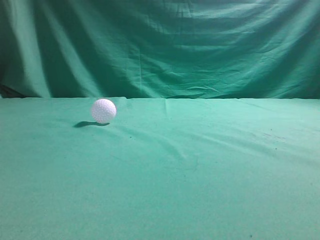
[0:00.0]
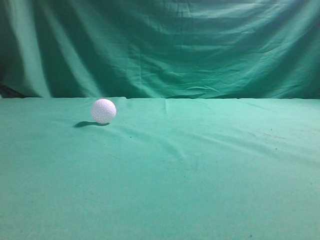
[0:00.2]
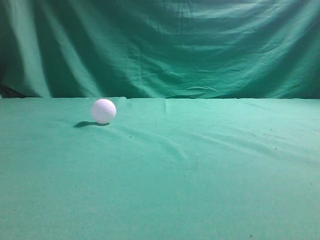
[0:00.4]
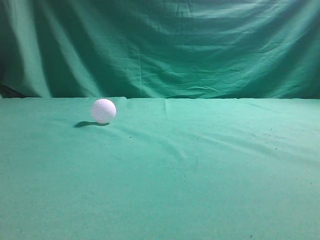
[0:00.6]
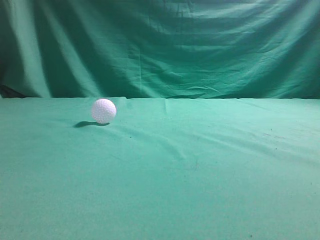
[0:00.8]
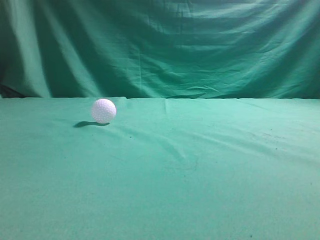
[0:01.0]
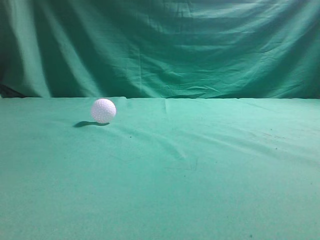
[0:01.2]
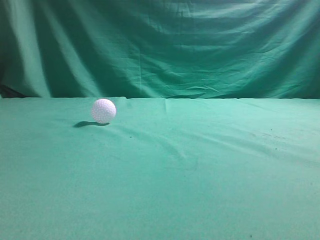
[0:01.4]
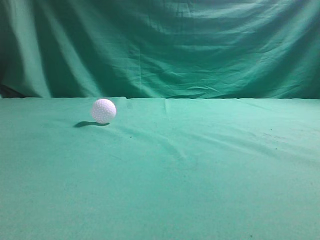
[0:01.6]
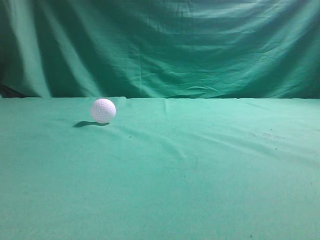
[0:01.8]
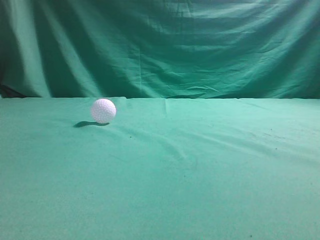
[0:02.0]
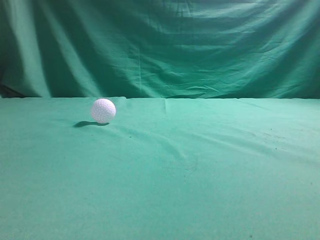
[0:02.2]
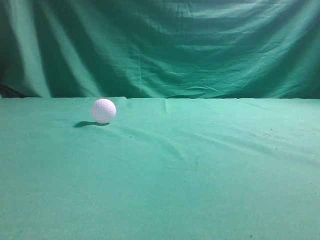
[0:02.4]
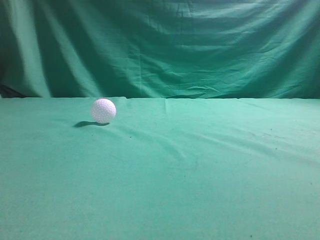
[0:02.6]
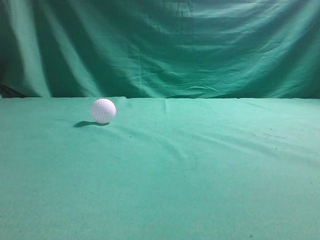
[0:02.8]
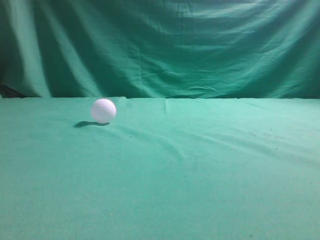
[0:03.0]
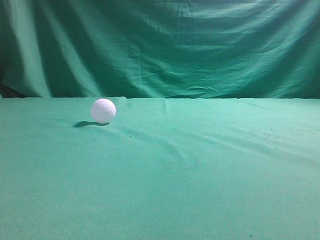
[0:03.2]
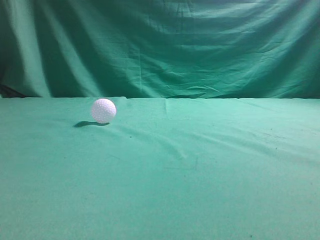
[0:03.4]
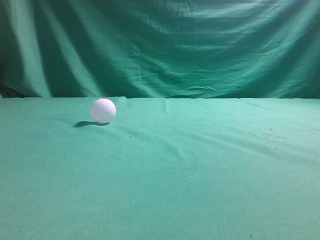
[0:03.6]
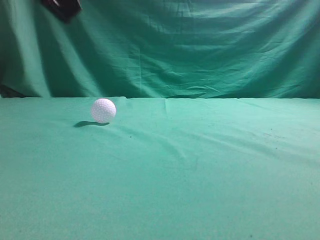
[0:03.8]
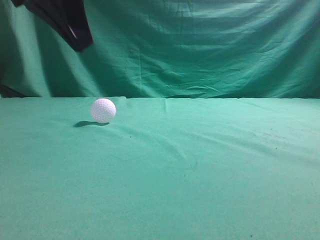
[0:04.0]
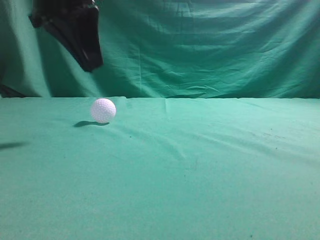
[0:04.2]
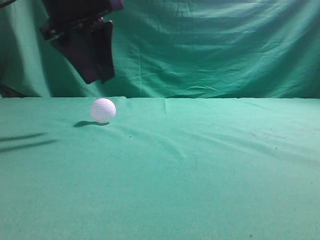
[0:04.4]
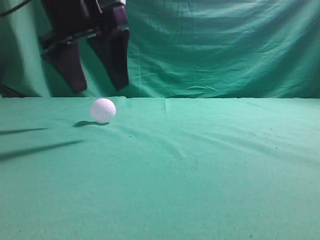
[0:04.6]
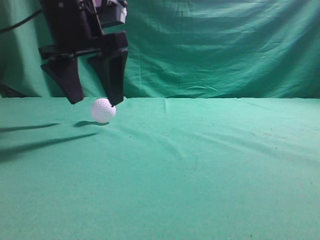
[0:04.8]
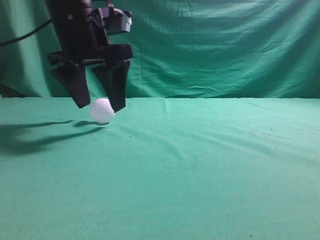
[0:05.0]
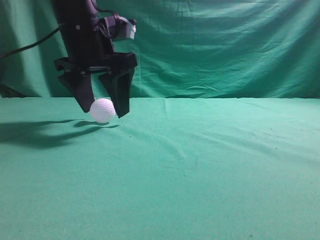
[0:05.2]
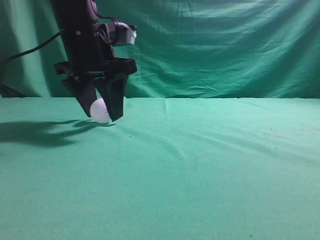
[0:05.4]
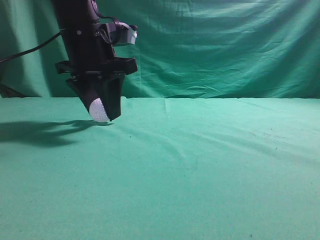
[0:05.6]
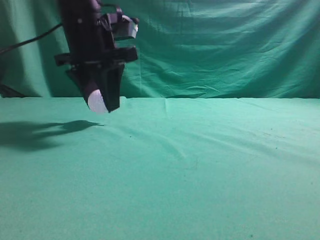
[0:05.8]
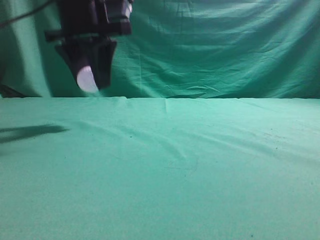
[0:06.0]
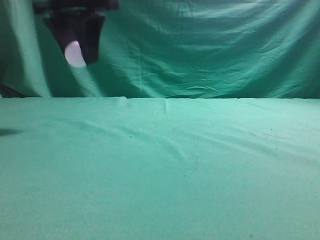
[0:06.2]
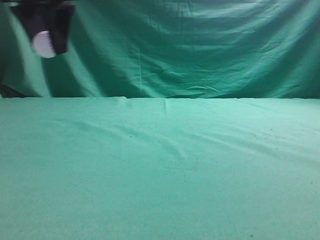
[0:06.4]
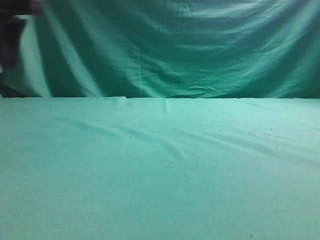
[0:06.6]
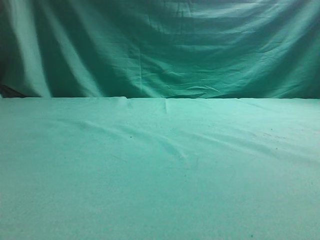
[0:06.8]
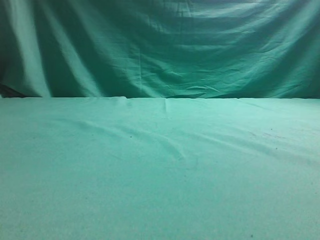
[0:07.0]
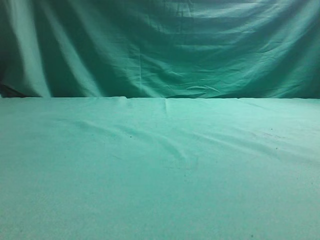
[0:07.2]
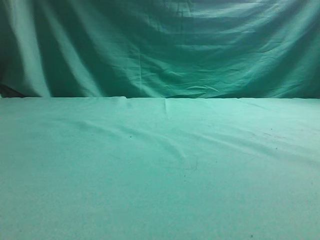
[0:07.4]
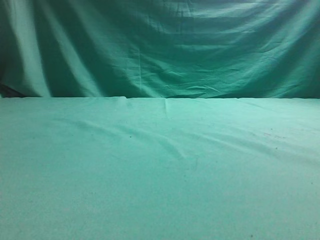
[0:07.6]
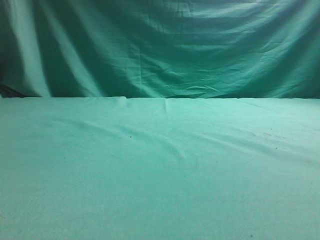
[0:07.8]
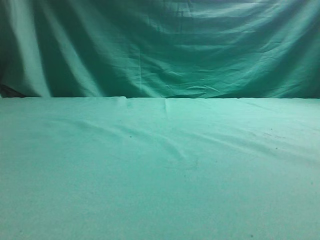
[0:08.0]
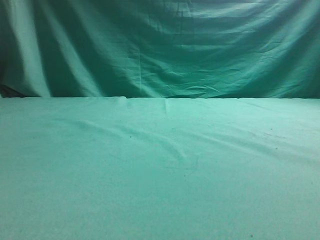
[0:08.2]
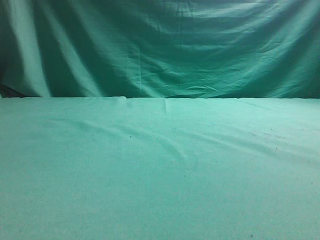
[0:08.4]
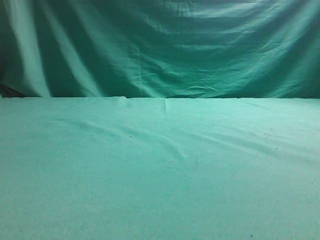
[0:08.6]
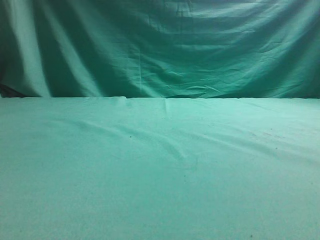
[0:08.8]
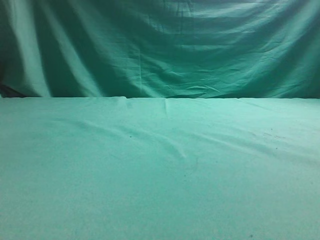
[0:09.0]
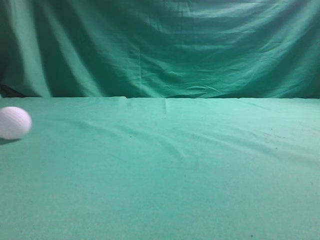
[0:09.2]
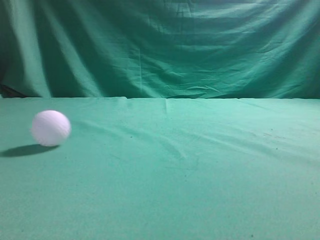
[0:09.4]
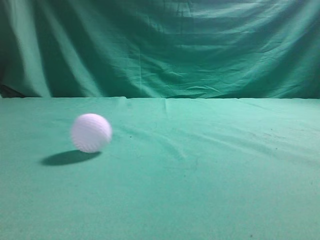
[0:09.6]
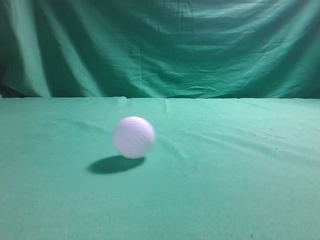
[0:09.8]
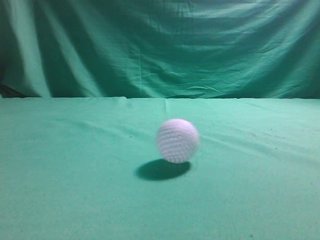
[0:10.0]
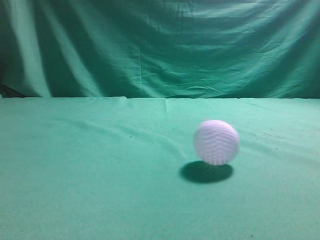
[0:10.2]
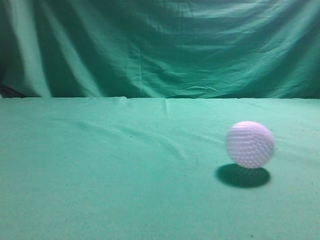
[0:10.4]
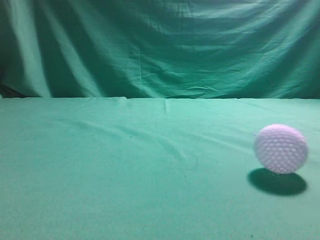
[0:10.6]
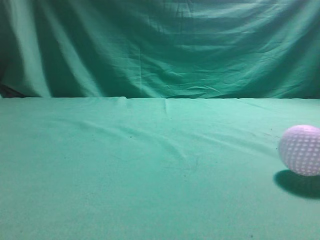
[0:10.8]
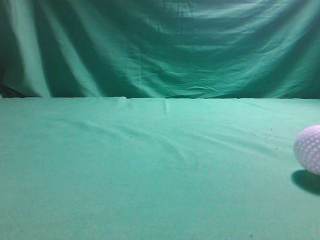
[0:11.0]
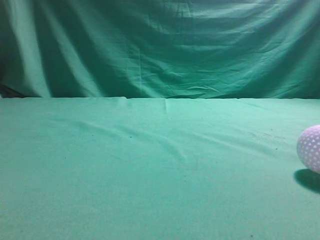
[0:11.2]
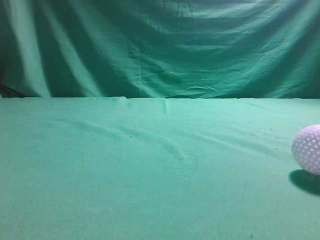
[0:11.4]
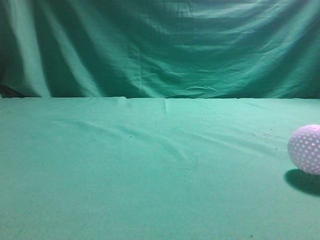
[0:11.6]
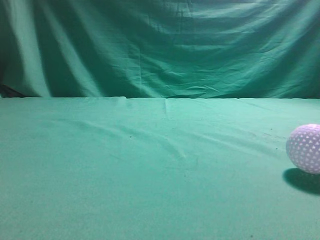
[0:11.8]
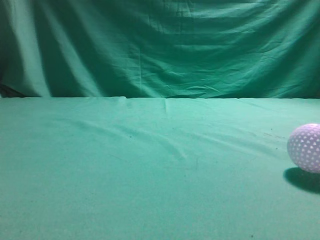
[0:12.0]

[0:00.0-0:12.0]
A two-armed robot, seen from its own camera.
Task of the whole recording: pick up the ball and place it on the plate, then pick up the ball from the plate and put it in the center of the table.
Step, 0:00.0 to 0:06.0: Grab the spherical object with your left arm.
Step, 0:06.2 to 0:08.6: Place the sphere on the white object.
0:03.0 to 0:04.4: The left gripper shifts roughly 30 cm forward and to the right, and opens its fingers.
0:04.4 to 0:06.0: The left gripper opens, then closes again.
0:06.0 to 0:07.6: The left gripper travels to the left by approximately 25 cm.
0:10.4 to 0:12.0: The right gripper goes some 15 cm to the left and forward.

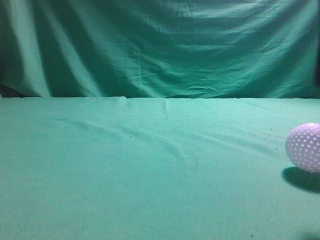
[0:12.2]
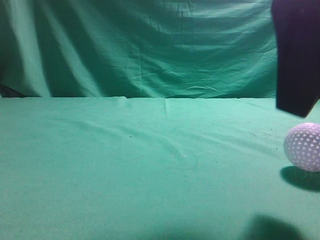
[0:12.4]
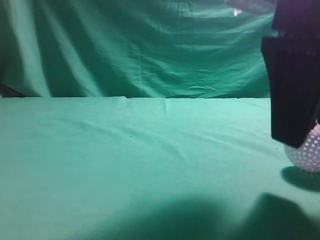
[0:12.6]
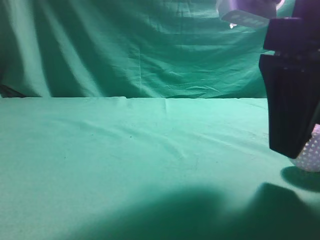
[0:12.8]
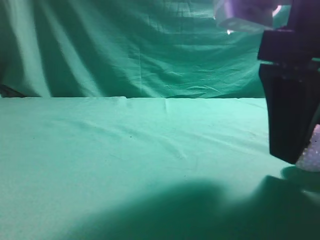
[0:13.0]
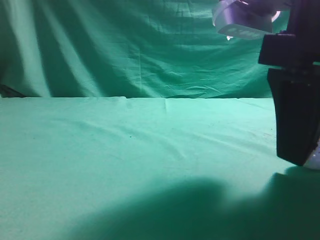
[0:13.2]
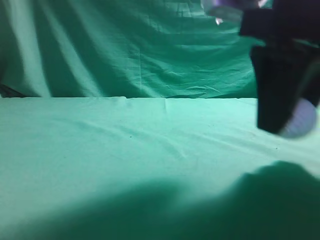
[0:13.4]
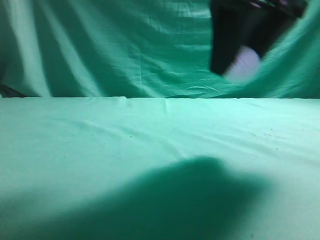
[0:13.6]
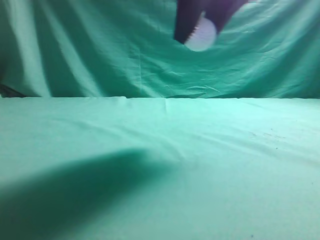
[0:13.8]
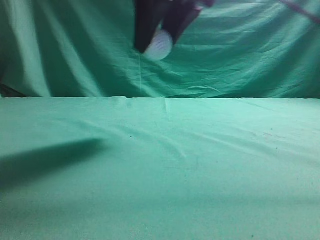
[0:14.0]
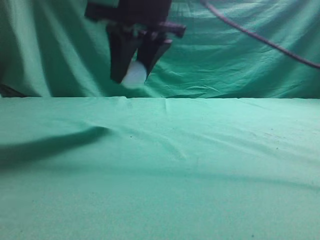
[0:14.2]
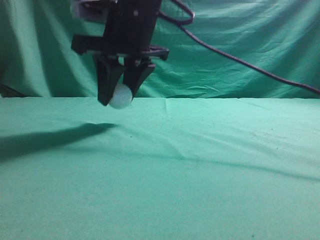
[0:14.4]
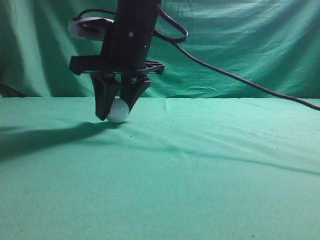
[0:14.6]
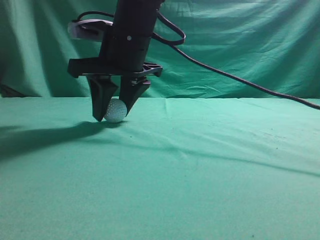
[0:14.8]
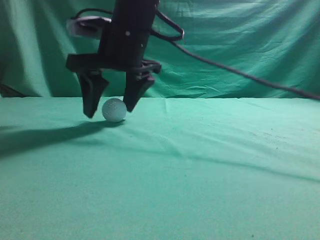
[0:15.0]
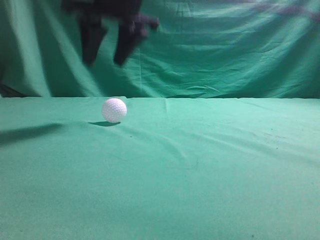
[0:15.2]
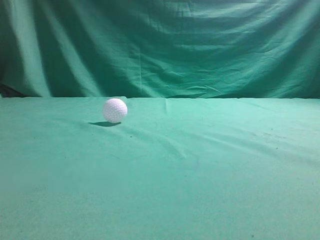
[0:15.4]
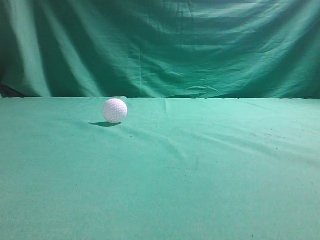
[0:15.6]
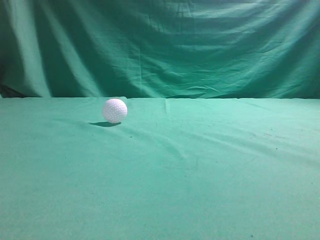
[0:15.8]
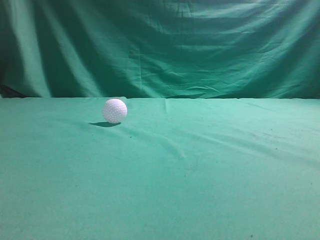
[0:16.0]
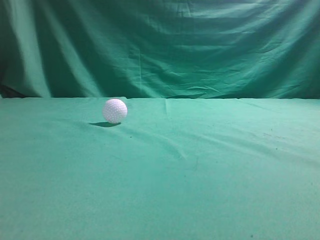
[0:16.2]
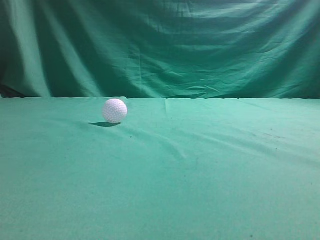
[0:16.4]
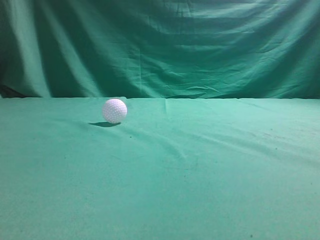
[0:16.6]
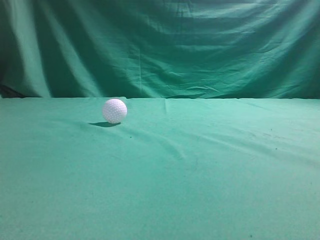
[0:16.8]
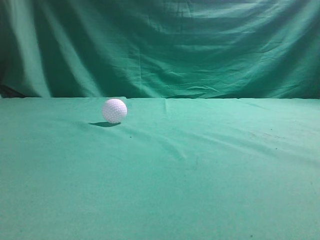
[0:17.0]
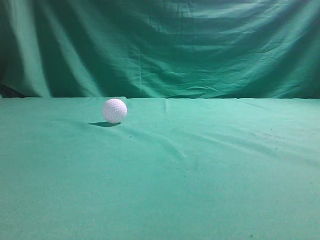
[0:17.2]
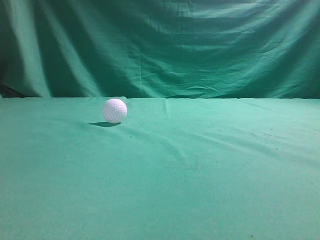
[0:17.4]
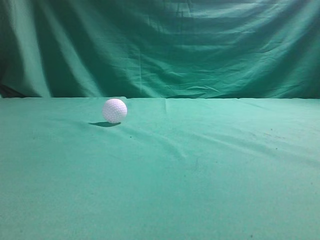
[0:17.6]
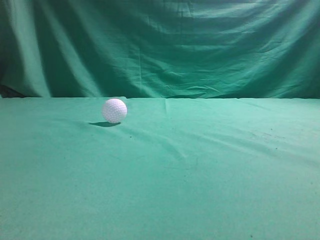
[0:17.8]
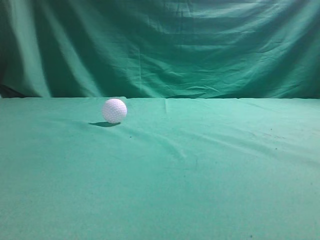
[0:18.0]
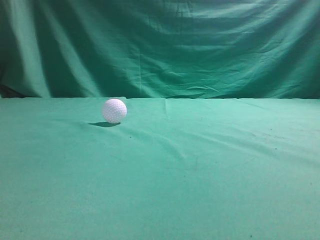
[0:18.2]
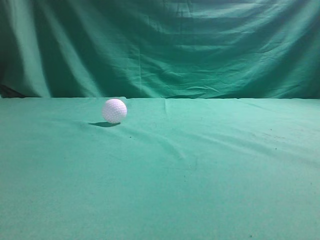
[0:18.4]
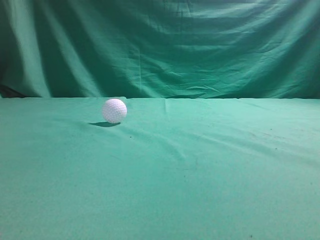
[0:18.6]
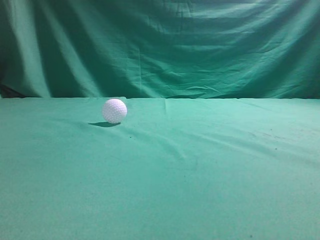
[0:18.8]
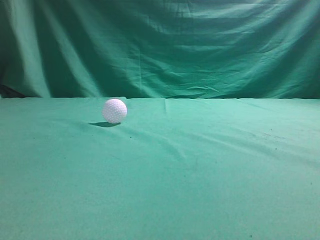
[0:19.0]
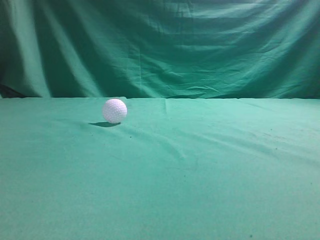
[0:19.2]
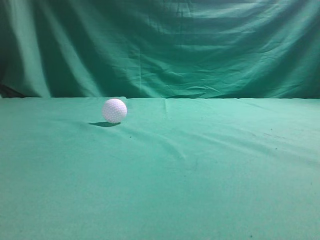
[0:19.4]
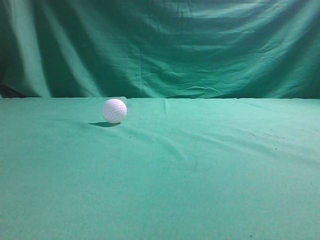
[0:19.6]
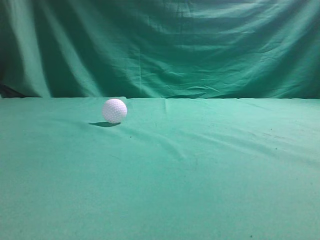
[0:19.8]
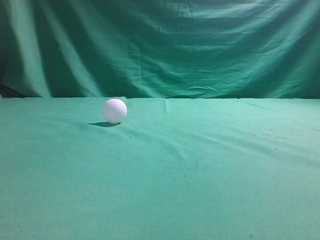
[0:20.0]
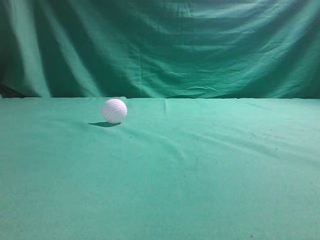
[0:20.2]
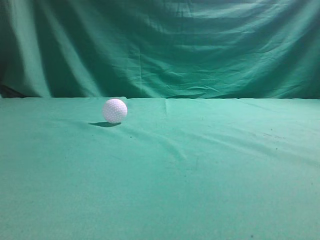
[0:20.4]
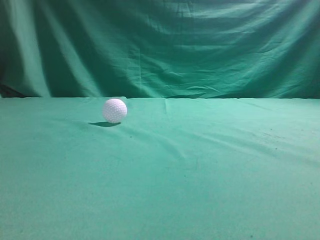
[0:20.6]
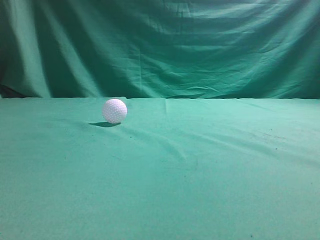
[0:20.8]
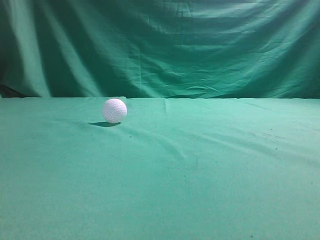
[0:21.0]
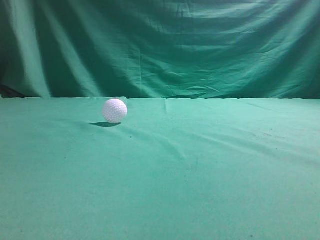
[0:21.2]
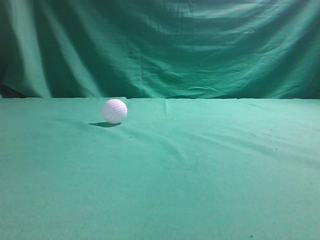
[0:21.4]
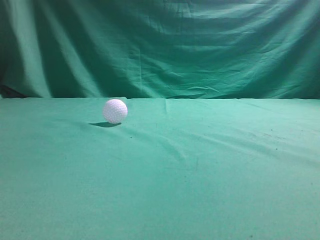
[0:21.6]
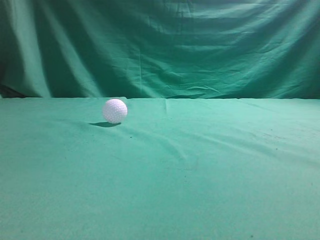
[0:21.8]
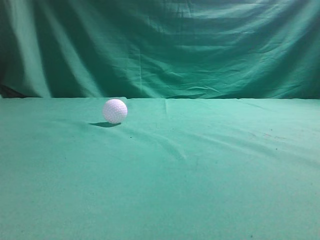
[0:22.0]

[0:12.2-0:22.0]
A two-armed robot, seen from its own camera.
Task of the whole recording: pick up the ball and place it on the plate, then pick up the ball from the plate and put it in the center of the table.
Step, 0:13.8 to 0:15.0: Put the picked-up object on the table.
0:12.2 to 0:13.6: The right gripper travels forward and to the left by about 10 cm.
0:13.6 to 0:15.0: The right gripper heads to the left and forward, covering roughly 20 cm, and opens up.
0:15.0 to 0:16.4: The left gripper goes about 5 cm backward. The right gripper shifts about 40 cm upward, backward and to the right, and closes its fingers.
